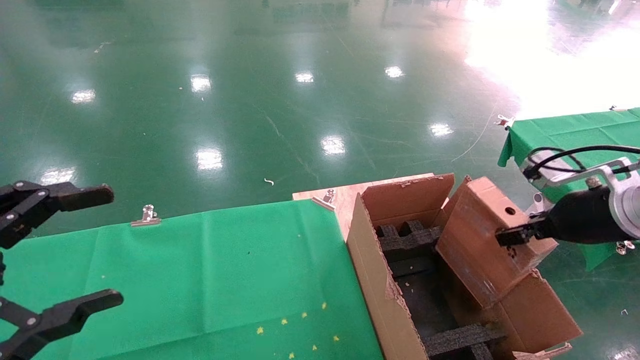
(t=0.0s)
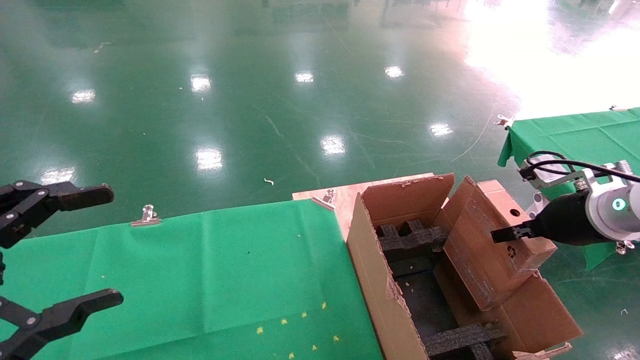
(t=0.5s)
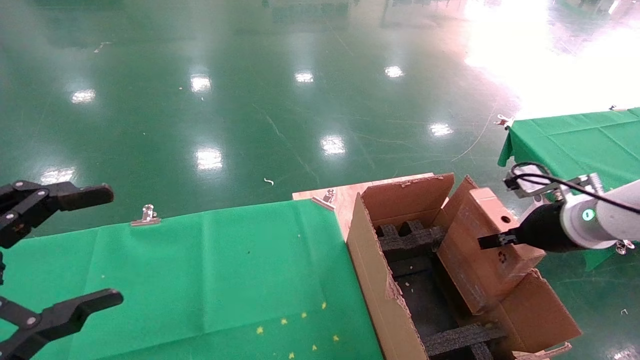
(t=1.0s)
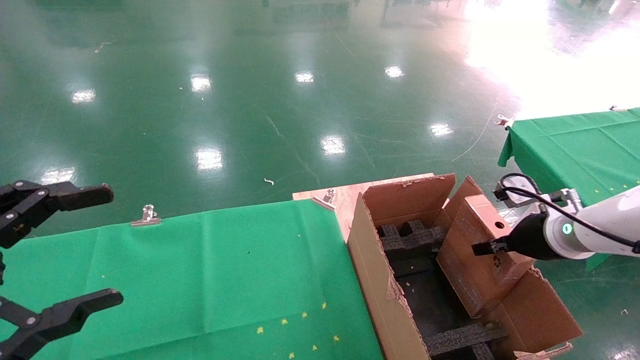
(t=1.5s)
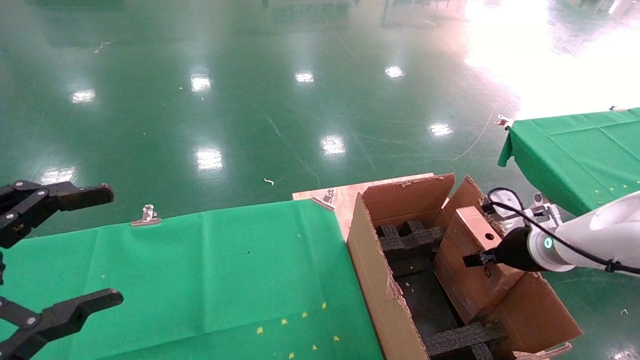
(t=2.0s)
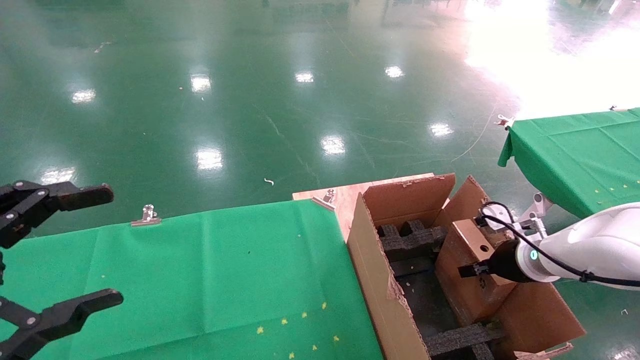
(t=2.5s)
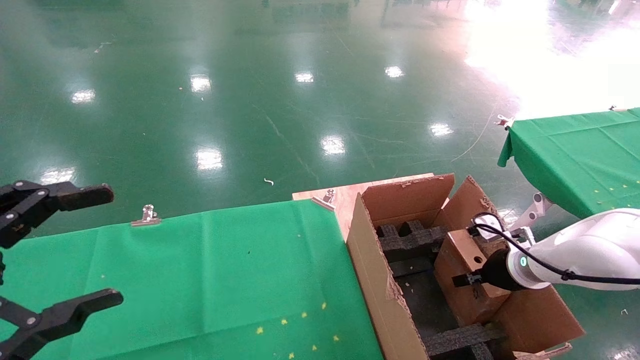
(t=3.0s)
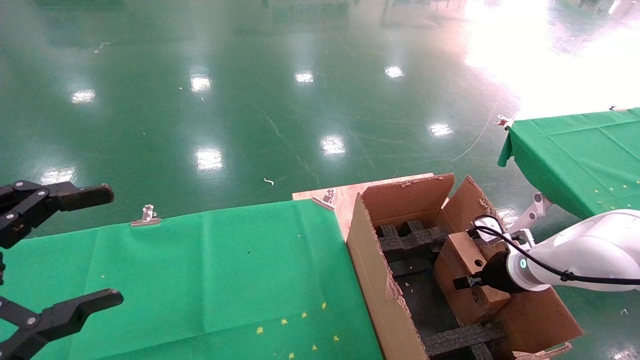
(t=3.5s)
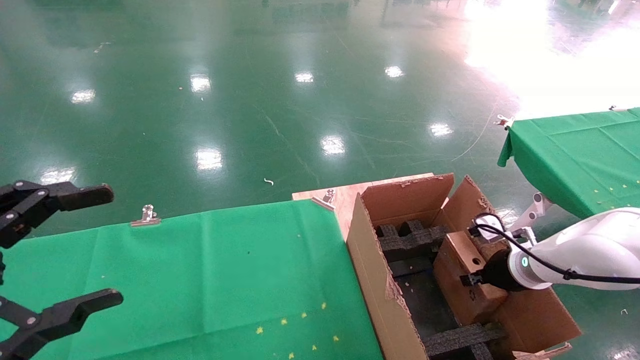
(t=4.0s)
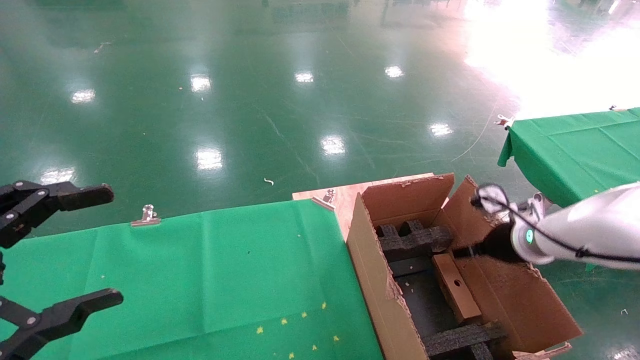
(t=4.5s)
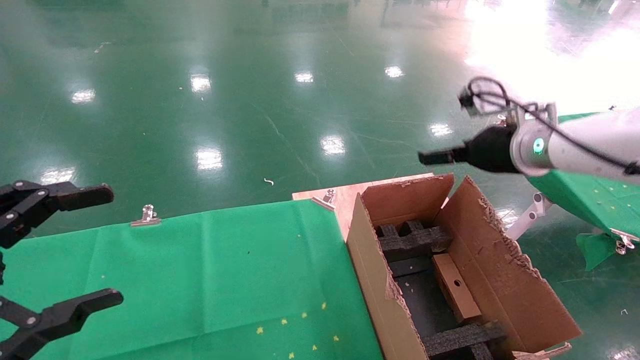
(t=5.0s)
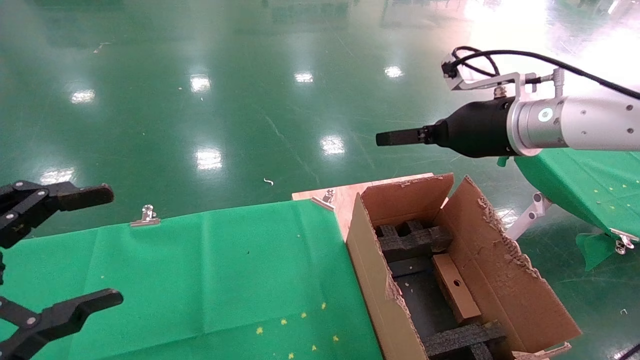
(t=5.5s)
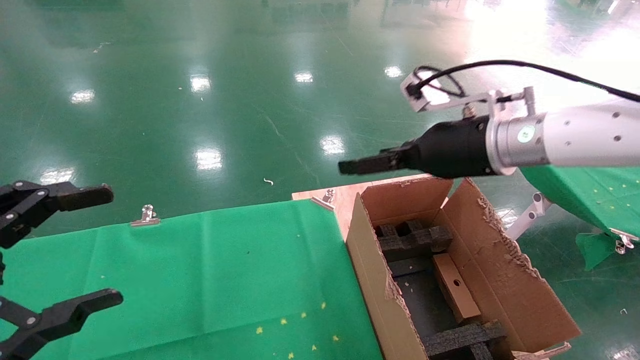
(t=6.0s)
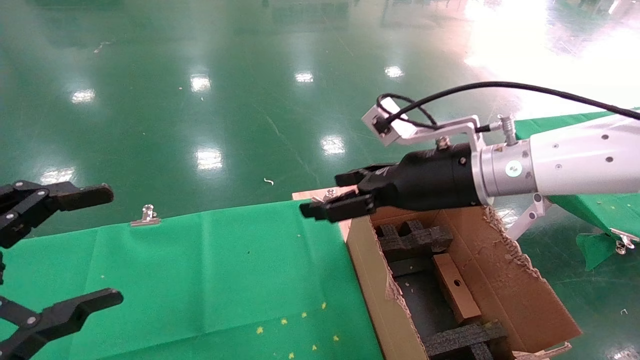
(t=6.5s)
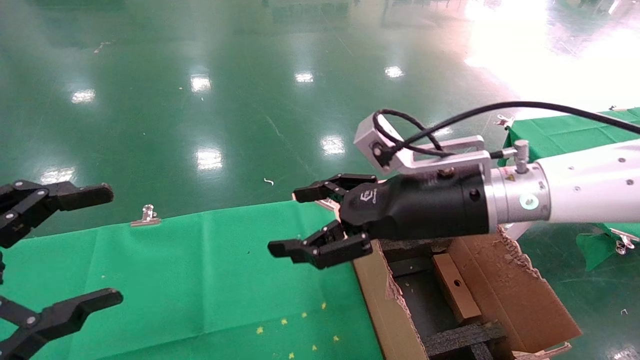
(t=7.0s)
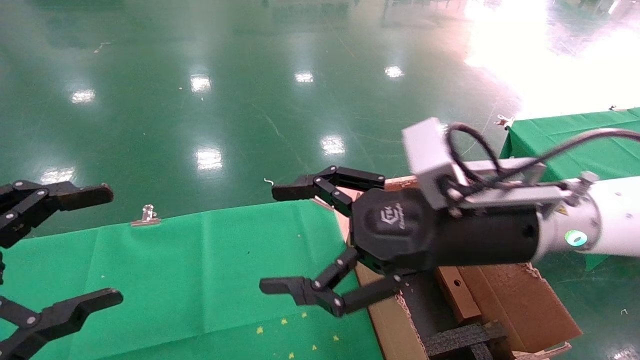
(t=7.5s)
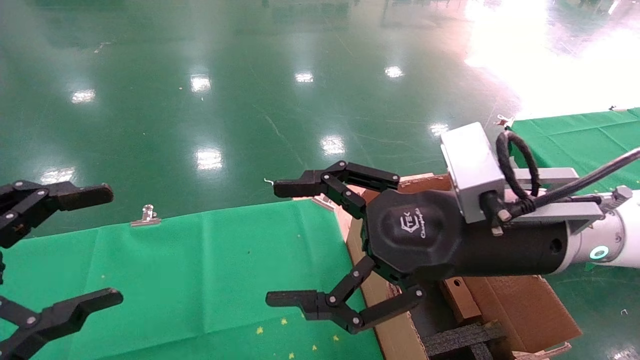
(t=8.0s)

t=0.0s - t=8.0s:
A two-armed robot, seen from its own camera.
Task of the whole recording: using a robotic arm to pick up a cardboard box and palace it the carton.
Step, t=0.0s - t=4.5s: Place the mouse and the power cord paper box into the container.
t=0.0s - t=2.0s: The right gripper heads downward and forward, covering some 10 cm.
t=2.0s - t=4.0s: The right gripper is displaced downward by some 5 cm.
t=4.0s - t=6.0s: The right gripper heads upward and to the left, covering some 25 cm, and opens.
t=6.0s - t=8.0s: The right gripper moves backward, approximately 10 cm.

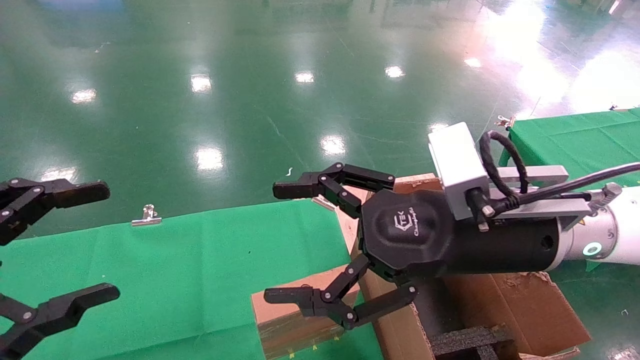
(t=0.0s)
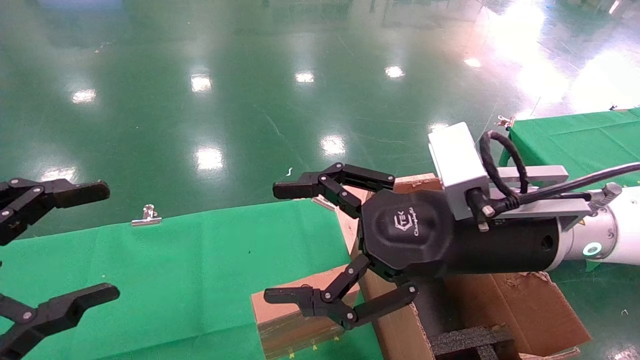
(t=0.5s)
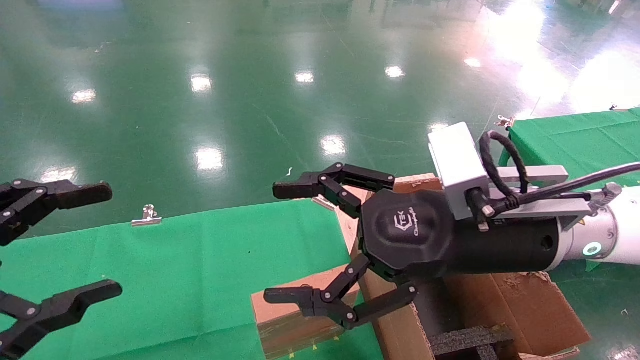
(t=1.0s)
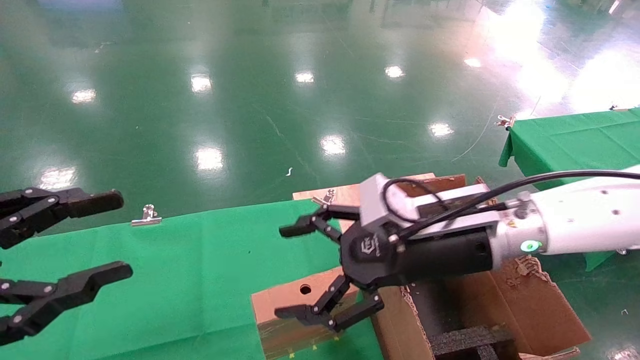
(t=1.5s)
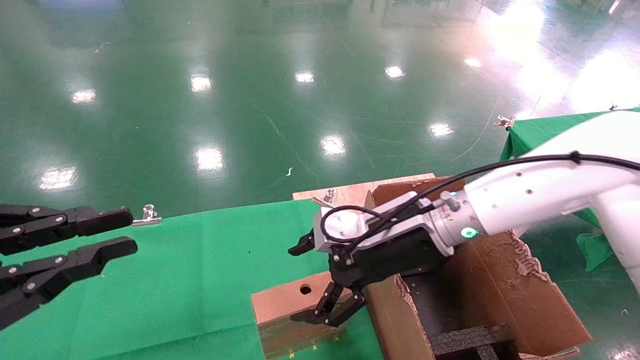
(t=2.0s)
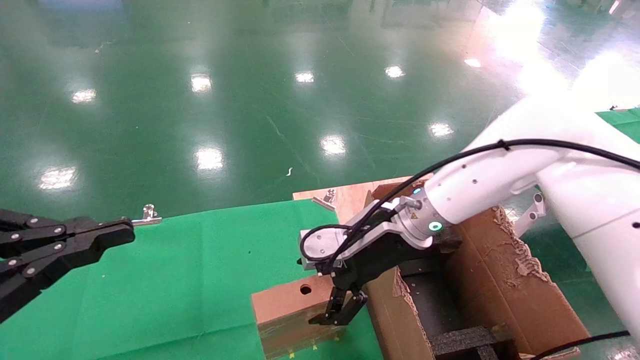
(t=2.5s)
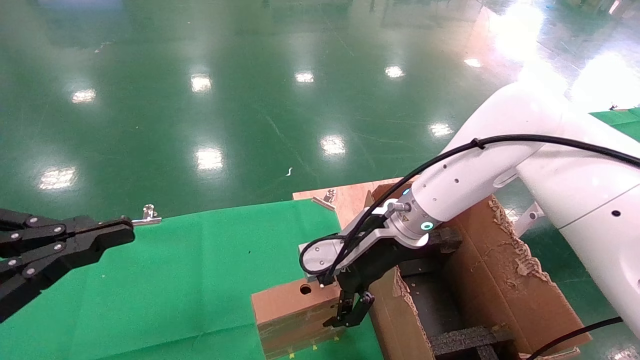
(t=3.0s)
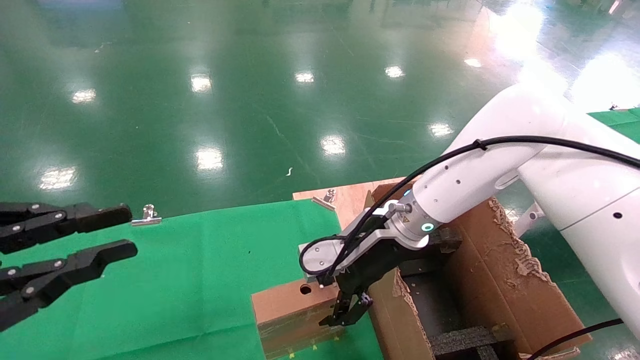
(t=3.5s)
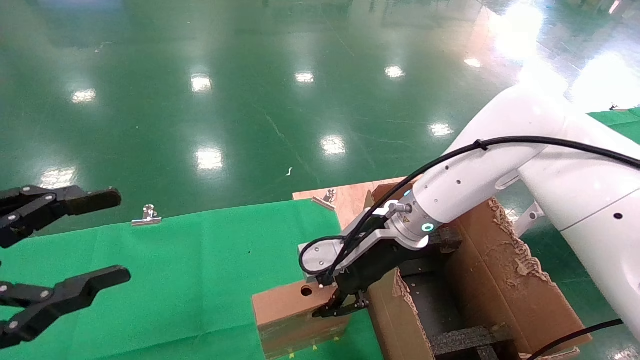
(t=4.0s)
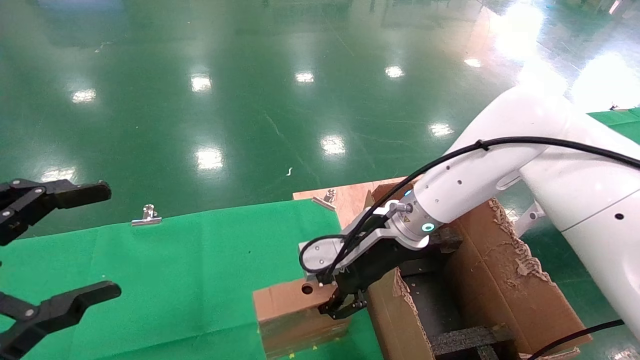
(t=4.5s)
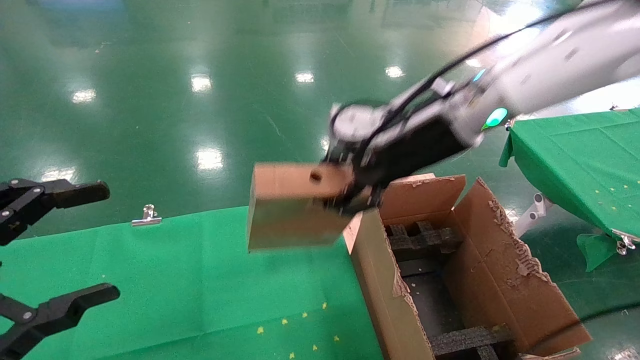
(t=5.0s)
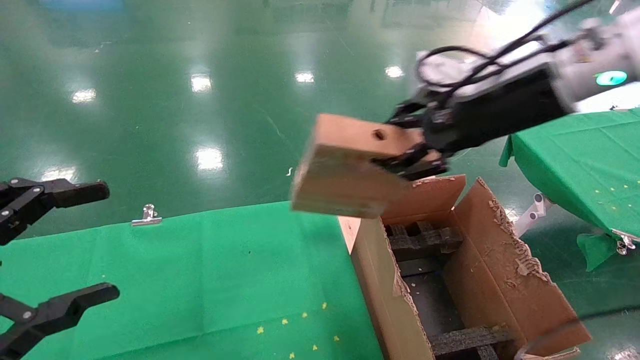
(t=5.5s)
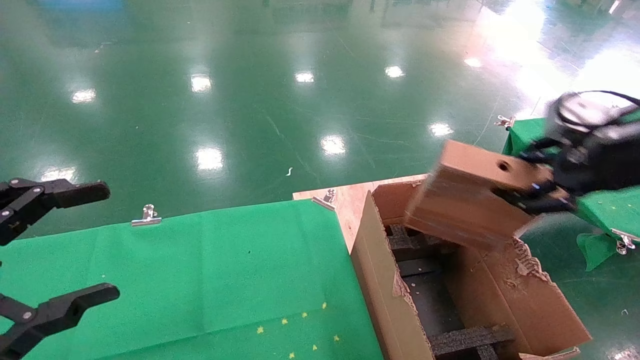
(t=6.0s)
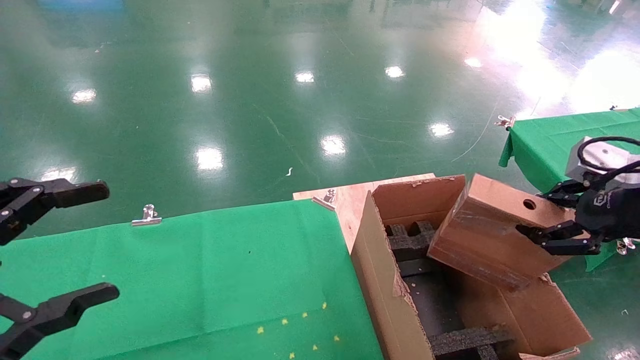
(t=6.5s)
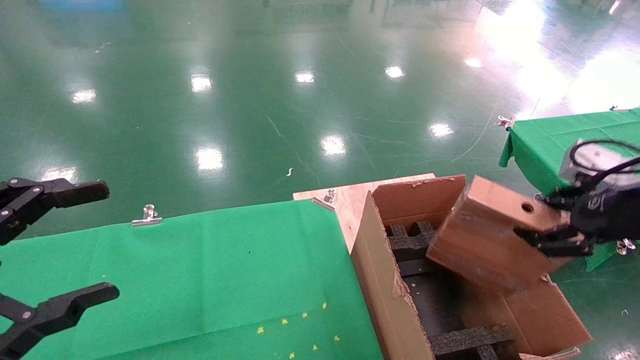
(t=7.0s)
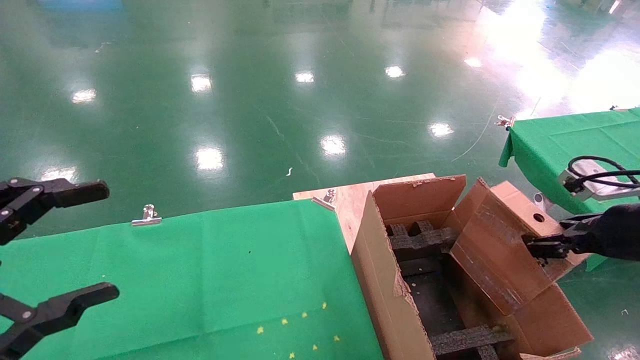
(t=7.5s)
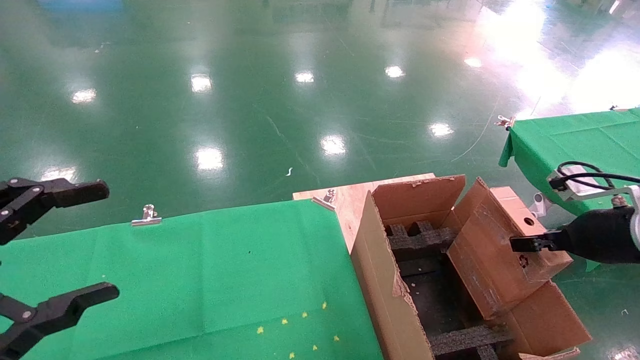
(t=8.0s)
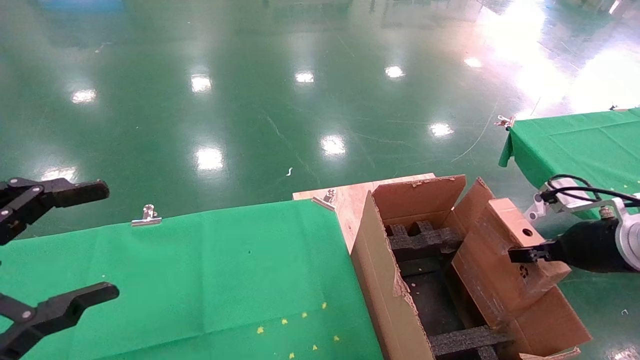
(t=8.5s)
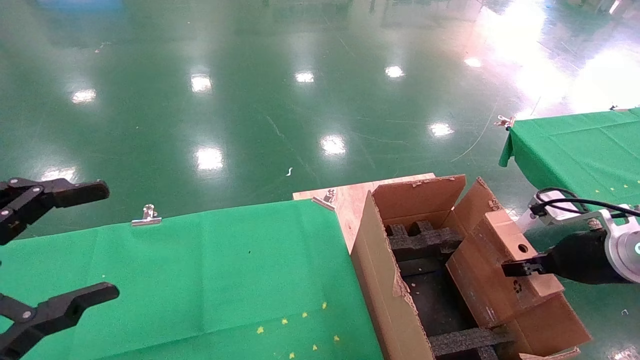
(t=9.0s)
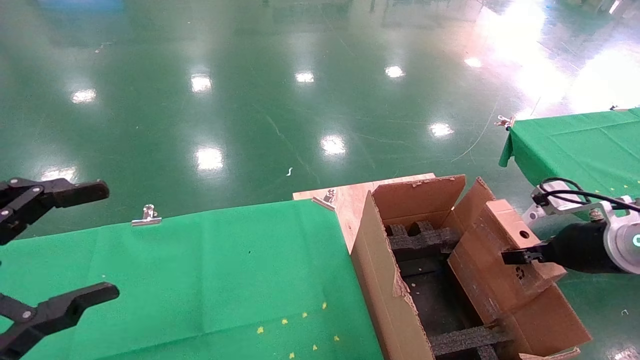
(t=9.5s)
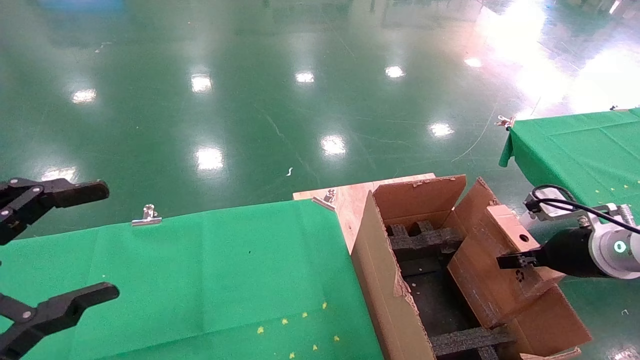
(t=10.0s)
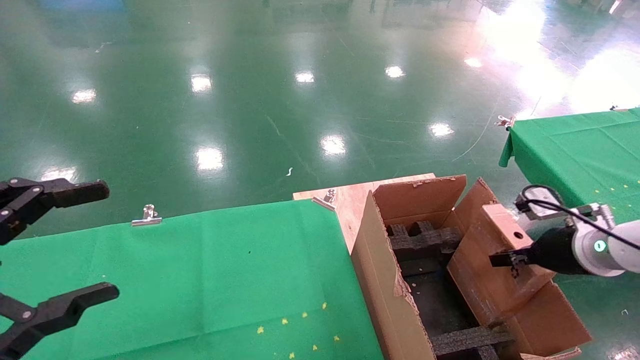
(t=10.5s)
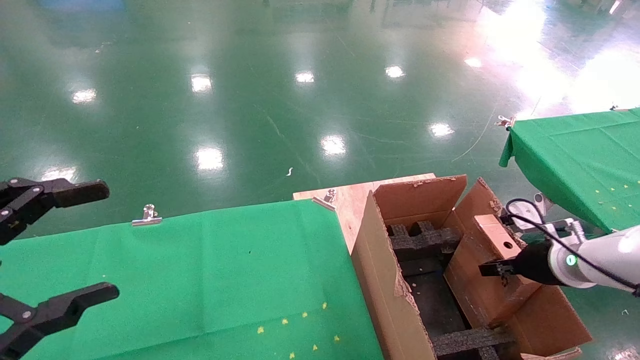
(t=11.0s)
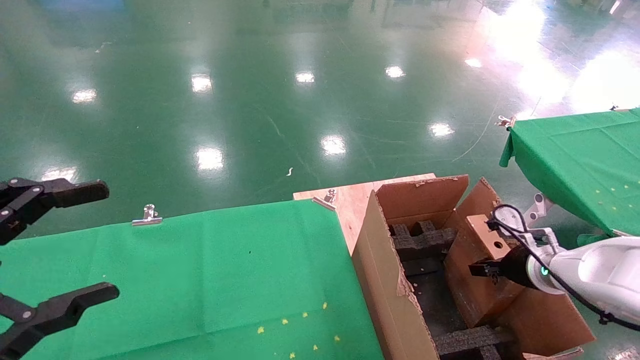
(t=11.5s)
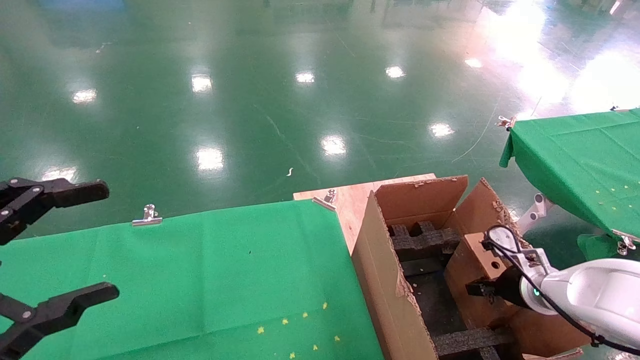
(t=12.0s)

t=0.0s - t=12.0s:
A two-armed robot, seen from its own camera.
Task of the whole recording: using a robotic arm to pick up a cardboard box and palace it the carton.
Step, t=1.5s - t=4.0s: Pick up the mouse and the power cord paper box.
t=0.0s - t=2.0s: The left gripper closes. Meanwhile the right gripper travels forward and downward by approximately 10 cm.
t=2.0s - t=4.0s: The right gripper closes.
t=4.0s - t=6.0s: The left gripper opens up. Meanwhile the right gripper is displaced to the right, upward and backward by approximately 30 cm, and closes its fingers.
t=6.0s - t=8.0s: The right gripper heads downward, covering some 15 cm.
t=8.0s - t=10.0s: The right gripper ends up roughly 5 cm from where it was.
t=10.0s - t=12.0s: The right gripper heads downward, covering about 10 cm.
